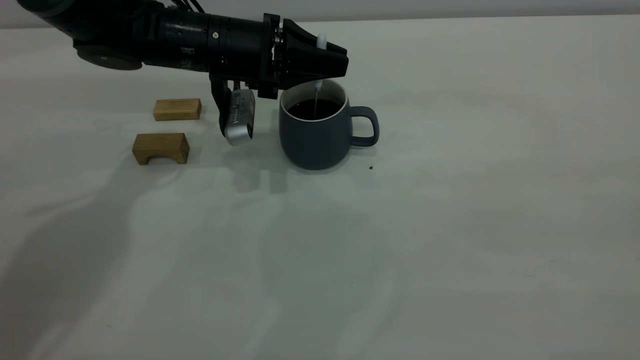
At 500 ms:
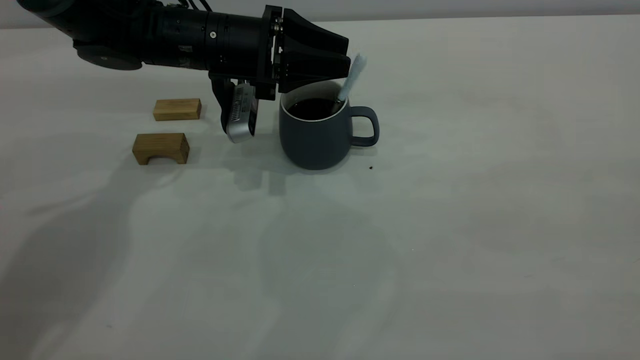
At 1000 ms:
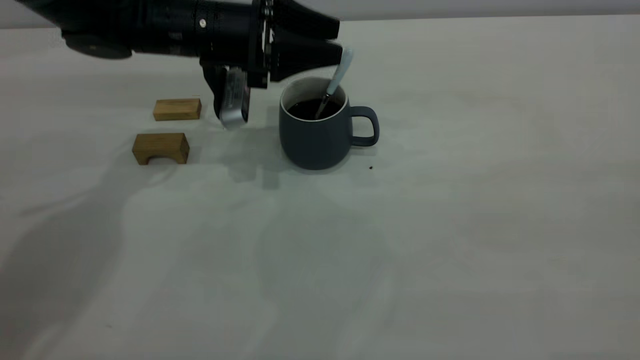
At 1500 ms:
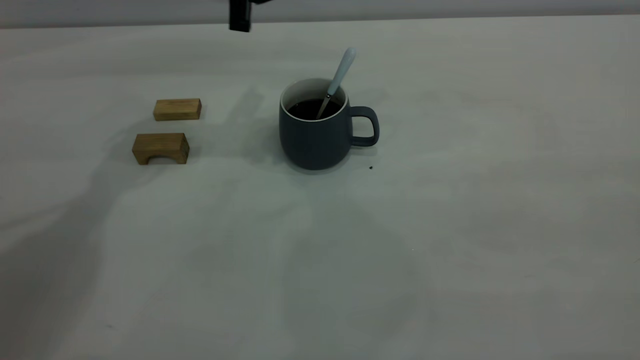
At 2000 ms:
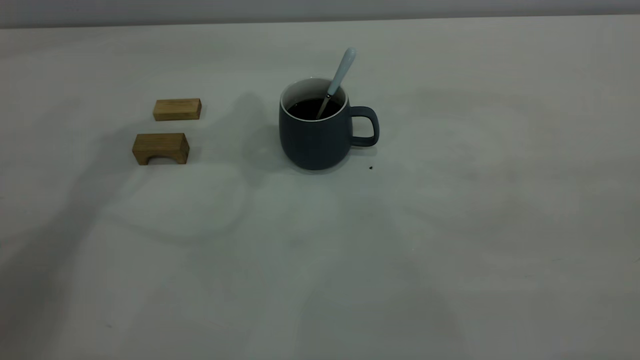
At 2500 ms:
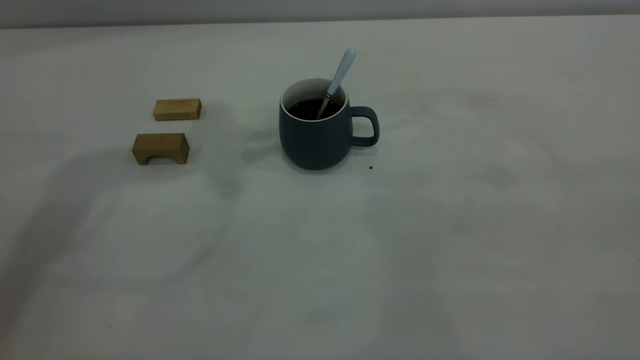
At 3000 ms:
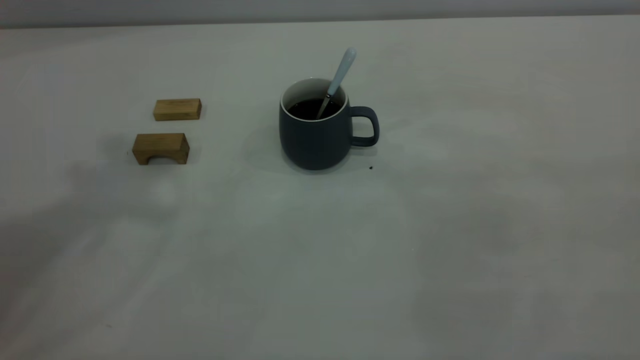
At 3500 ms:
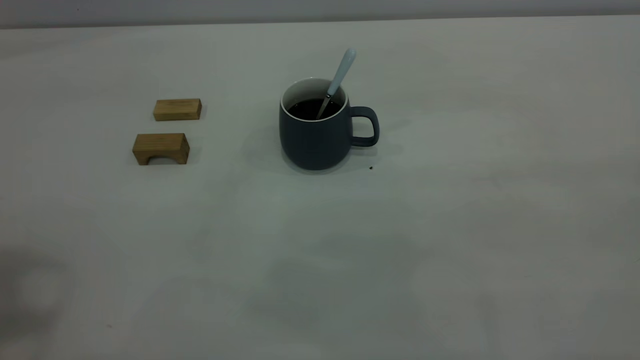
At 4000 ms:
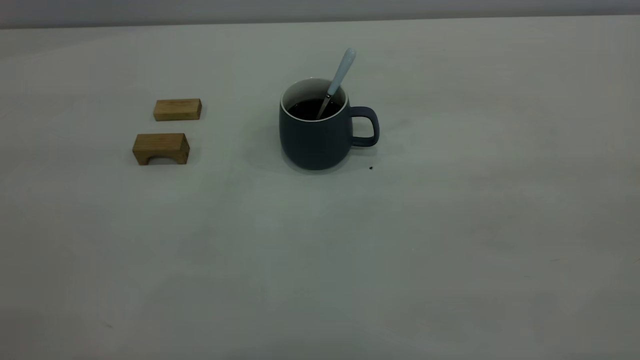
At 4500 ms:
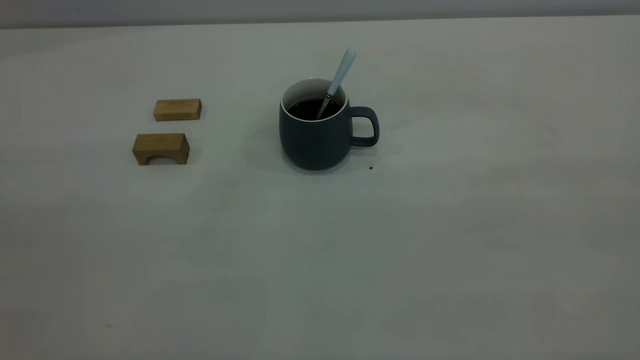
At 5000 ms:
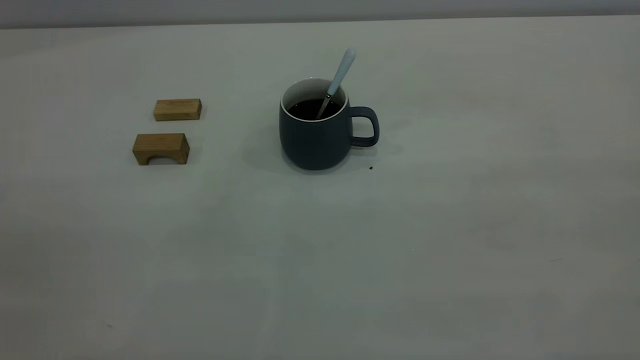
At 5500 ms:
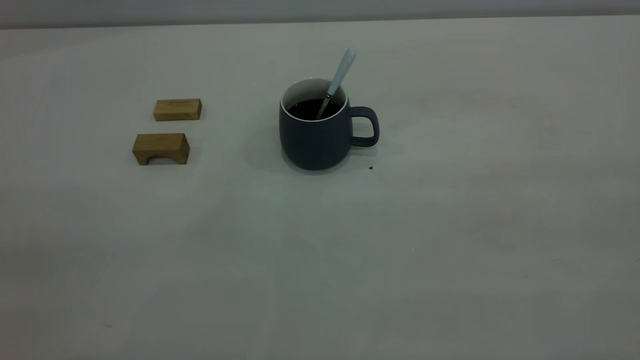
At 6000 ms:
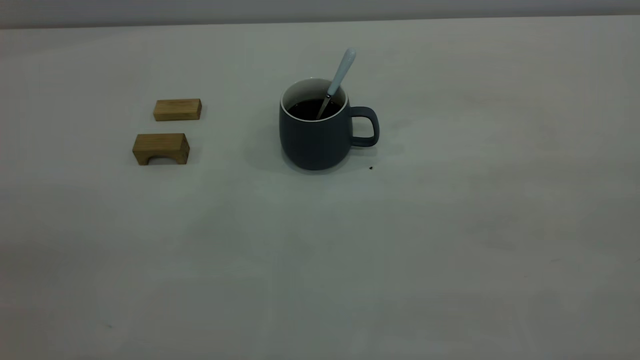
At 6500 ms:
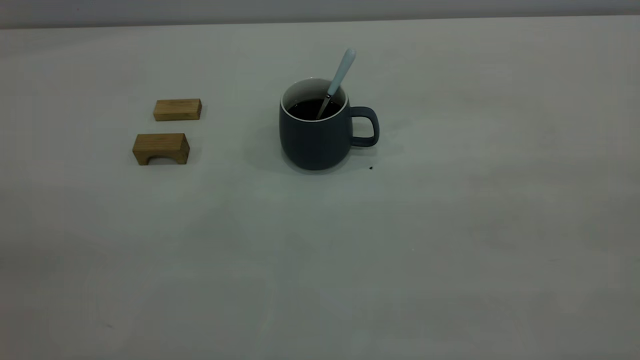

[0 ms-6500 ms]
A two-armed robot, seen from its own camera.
0 ms to 2000 ms: The left gripper shifts roughly 20 cm upward, and opens up.

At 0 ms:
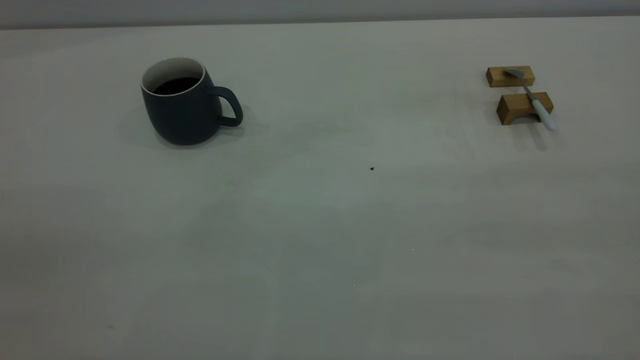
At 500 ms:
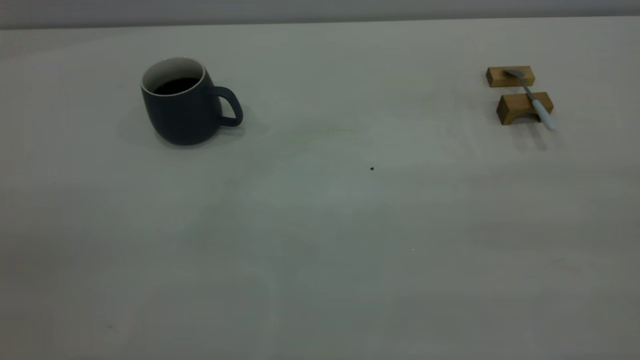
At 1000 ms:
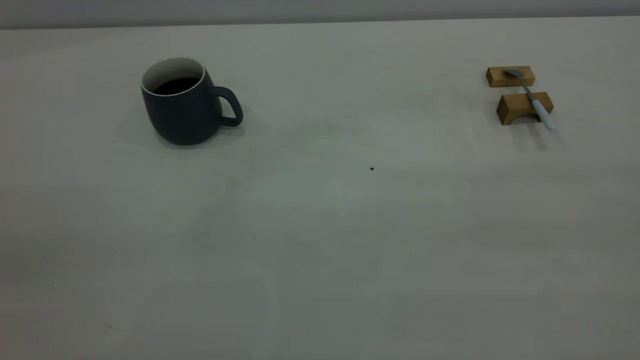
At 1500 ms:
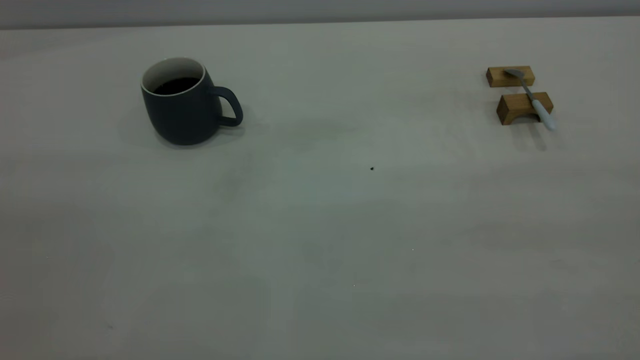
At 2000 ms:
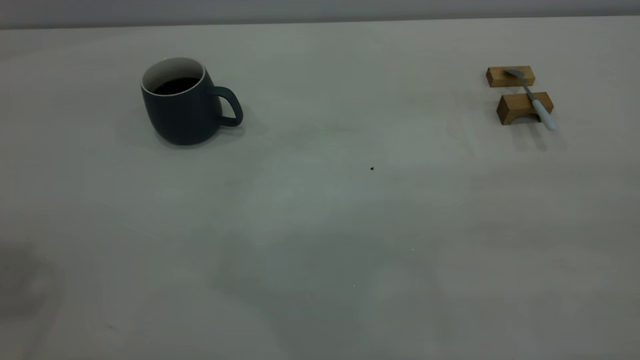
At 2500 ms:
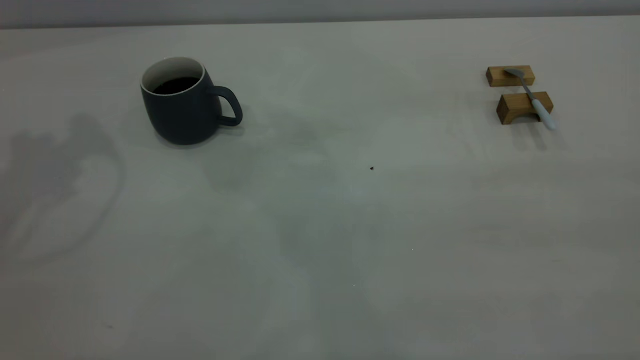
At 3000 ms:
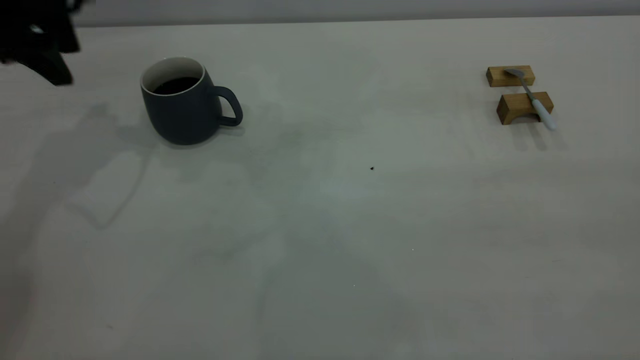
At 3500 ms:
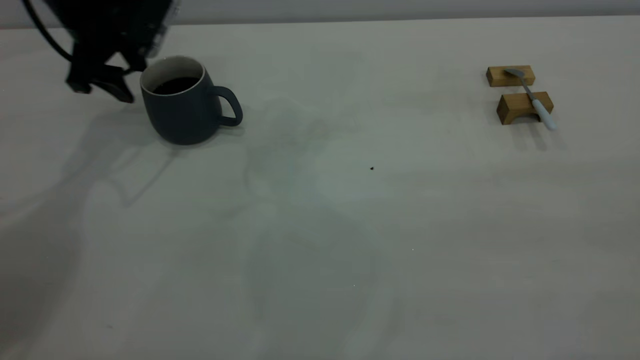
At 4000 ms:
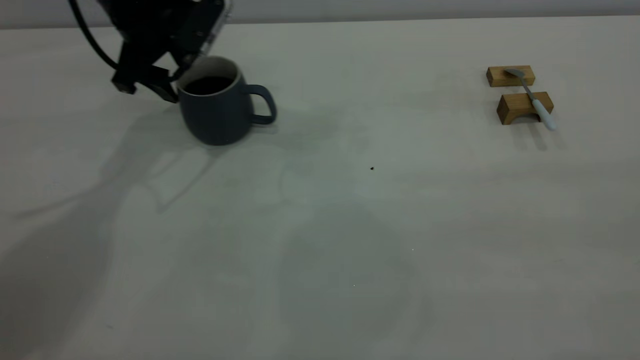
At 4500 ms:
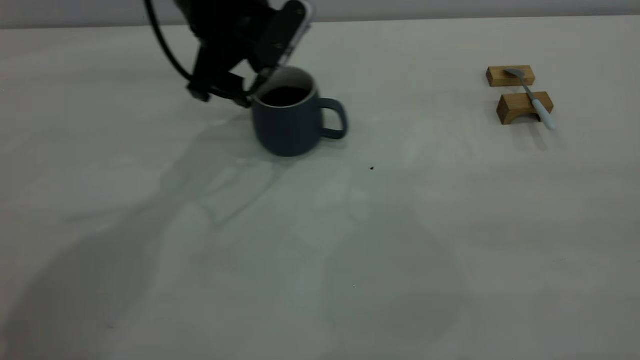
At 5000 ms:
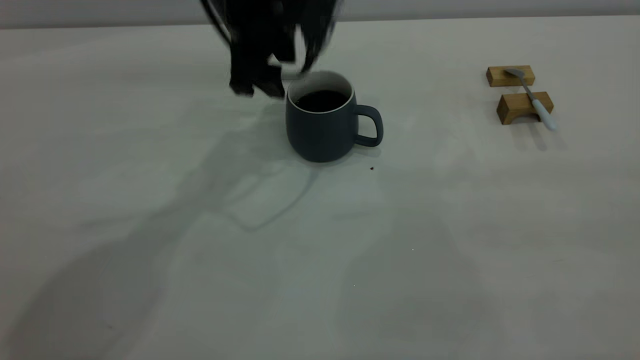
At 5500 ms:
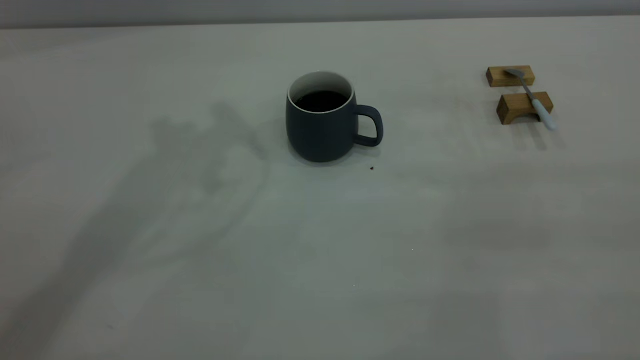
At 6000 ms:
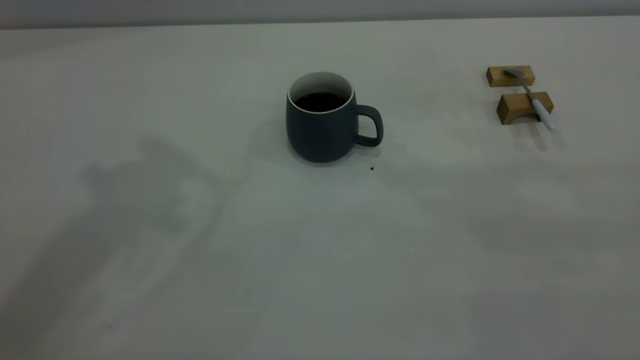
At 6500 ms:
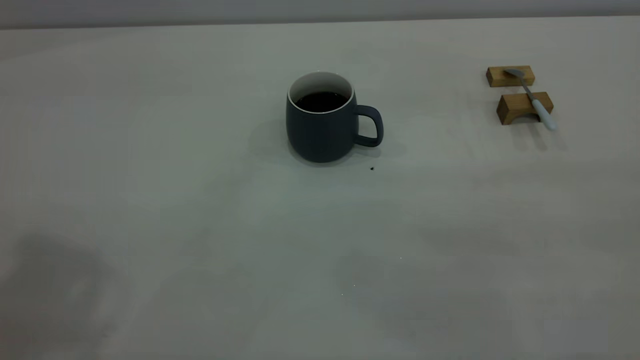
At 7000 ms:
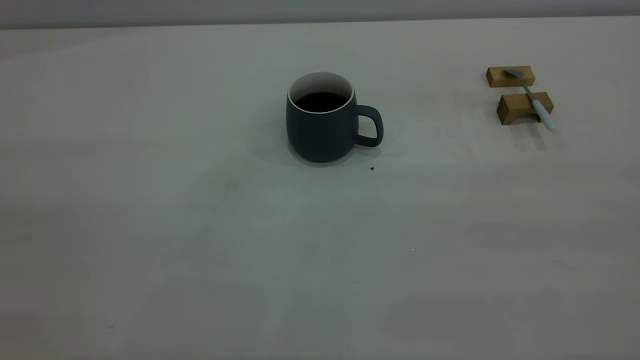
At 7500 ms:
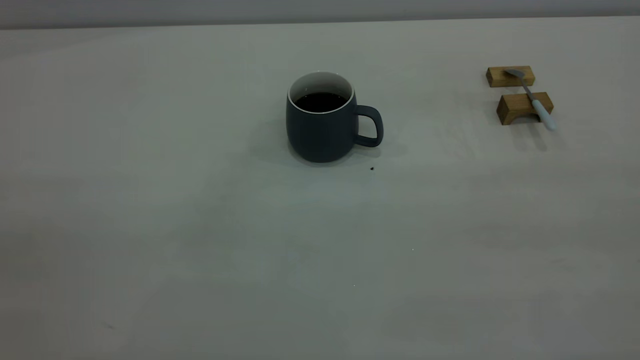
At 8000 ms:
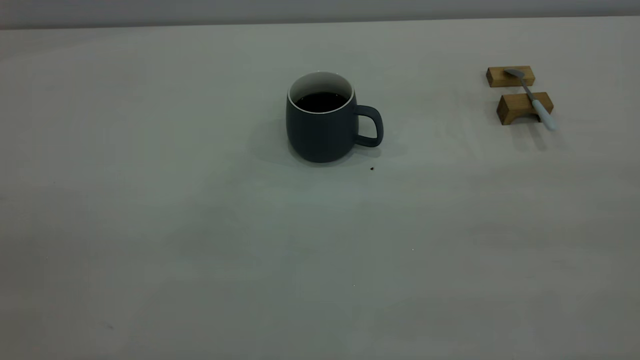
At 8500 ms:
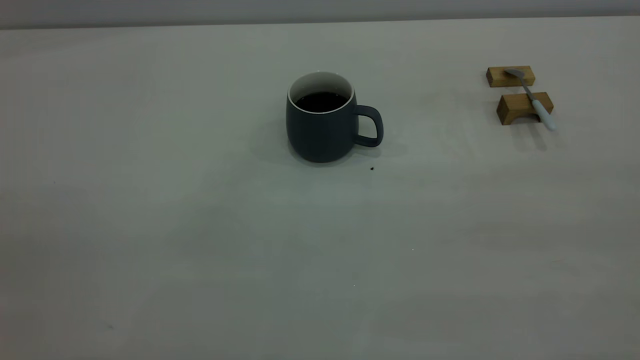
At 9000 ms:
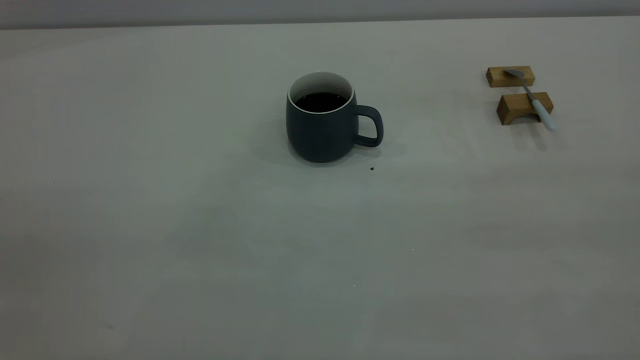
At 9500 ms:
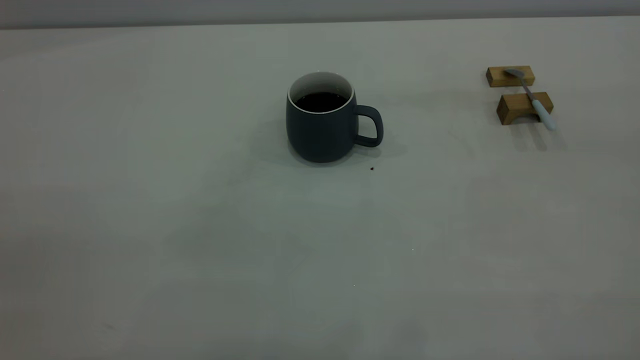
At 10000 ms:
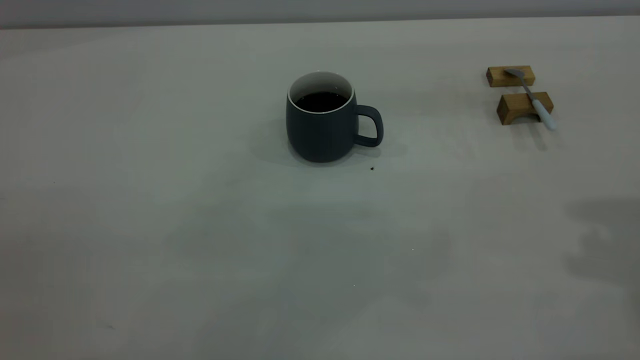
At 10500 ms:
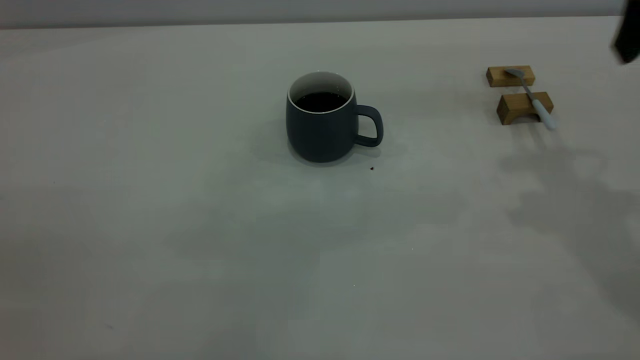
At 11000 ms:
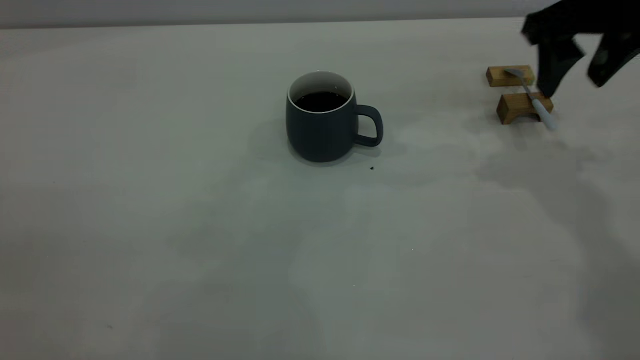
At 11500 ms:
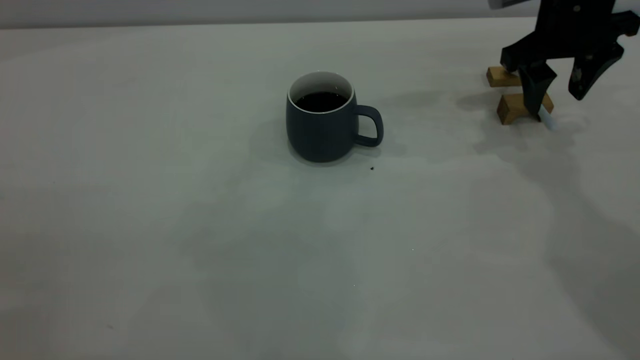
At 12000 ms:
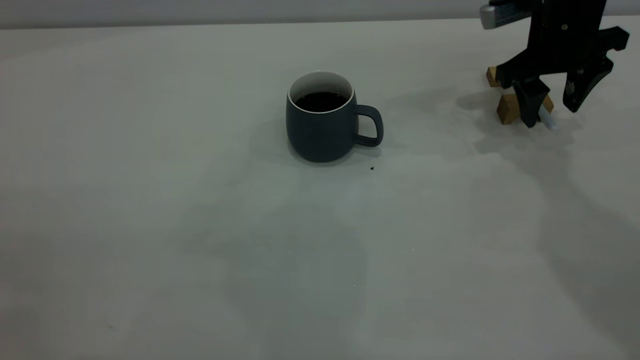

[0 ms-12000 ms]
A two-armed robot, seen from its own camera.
Step, 0 ms to 5000 ms: Move the cup with coffee to the center of view.
2000 ms to 4000 ms: The left gripper heads downward, forward and to the right, covering some 40 cm.
4000 ms to 6000 ms: The left gripper shifts approximately 40 cm upward and backward.
10000 ms to 12000 ms: The right gripper goes some 30 cm downward and forward.

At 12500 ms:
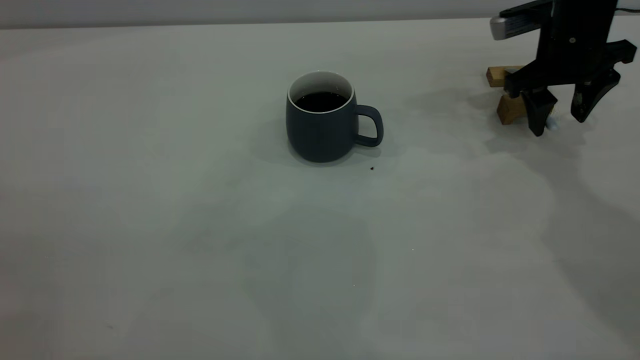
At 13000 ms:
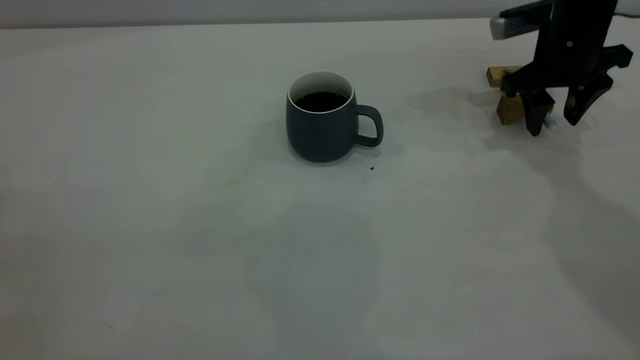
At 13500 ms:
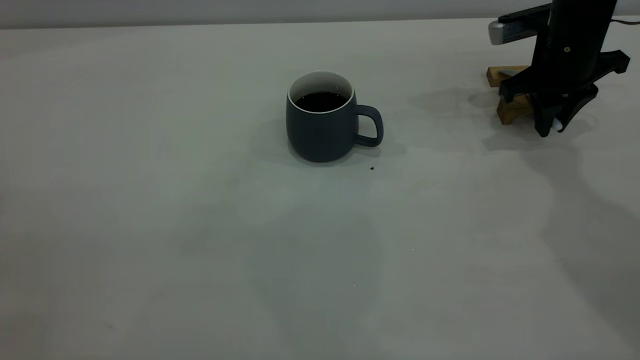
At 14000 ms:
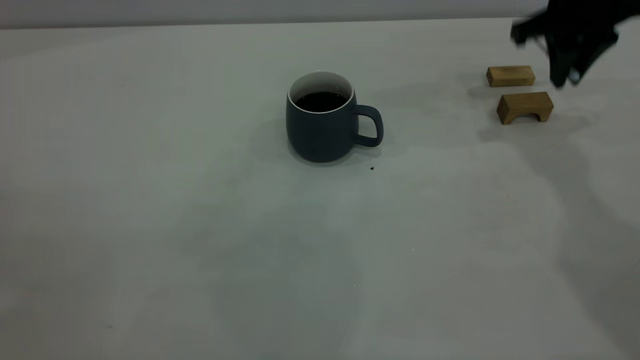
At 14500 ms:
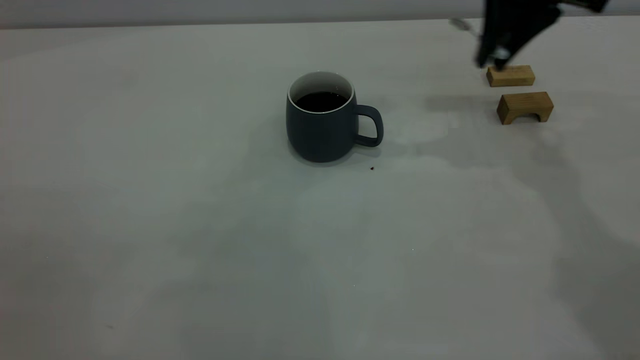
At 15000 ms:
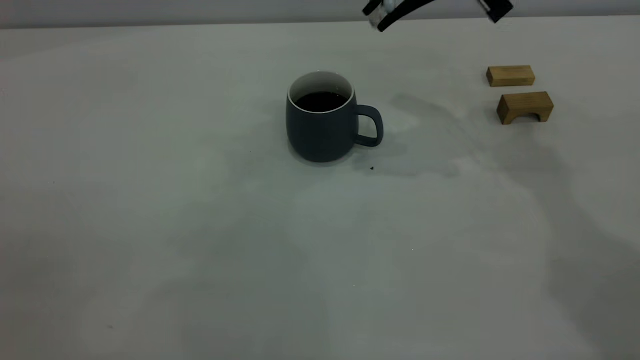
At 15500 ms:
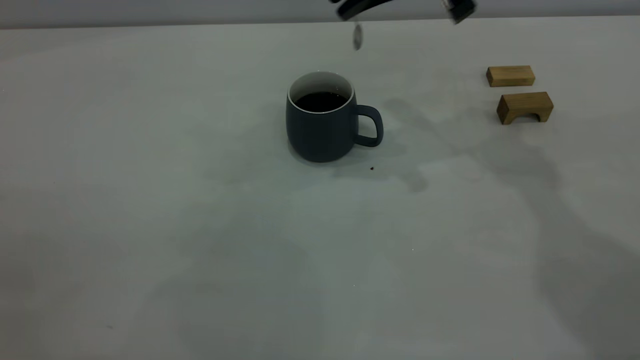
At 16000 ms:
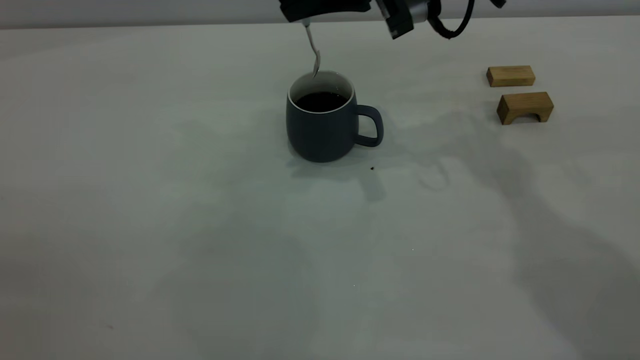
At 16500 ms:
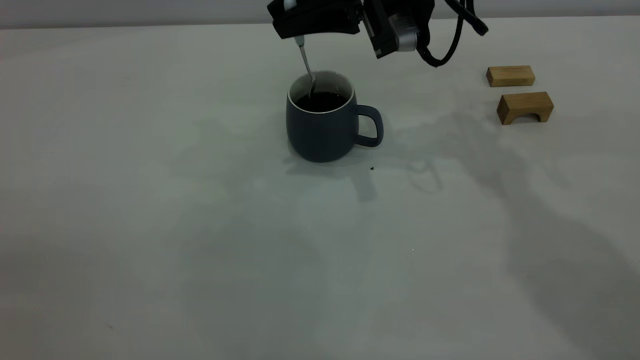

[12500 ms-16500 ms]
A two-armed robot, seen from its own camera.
12500 ms to 14500 ms: The right gripper is displaced upward and to the left by roughly 15 cm, and closes its fingers.
14500 ms to 16500 ms: The right gripper goes approximately 10 cm to the left.
